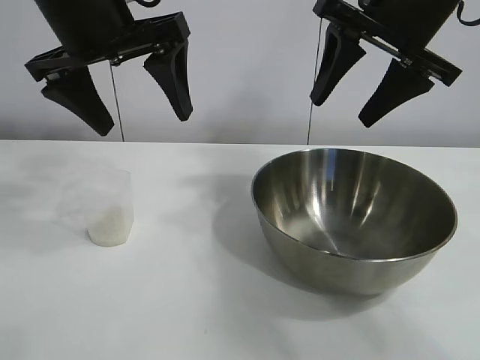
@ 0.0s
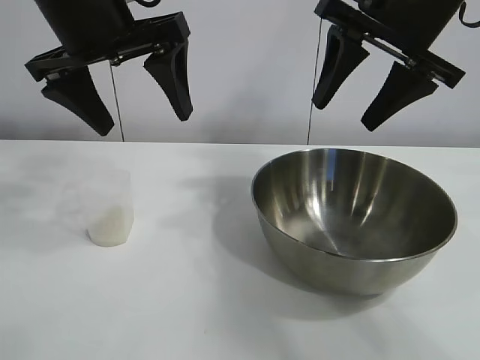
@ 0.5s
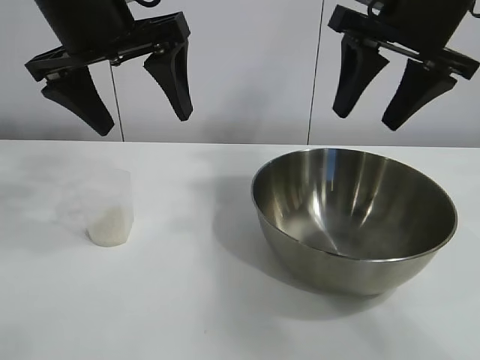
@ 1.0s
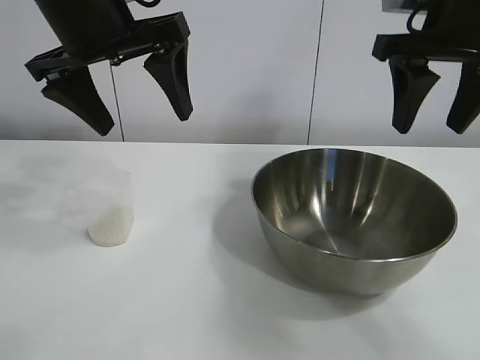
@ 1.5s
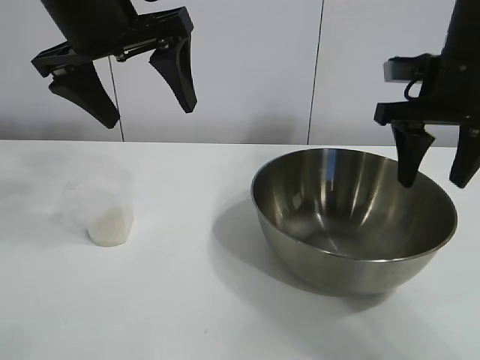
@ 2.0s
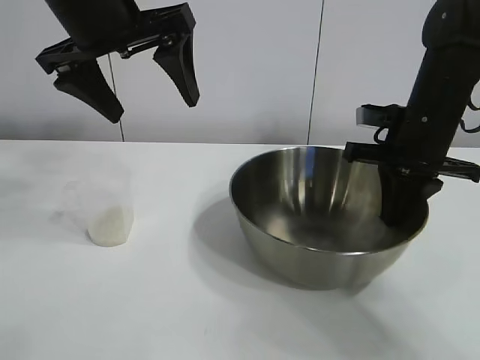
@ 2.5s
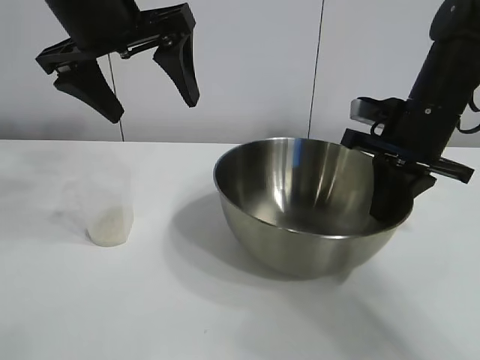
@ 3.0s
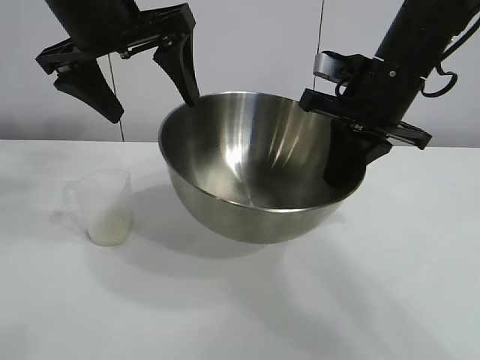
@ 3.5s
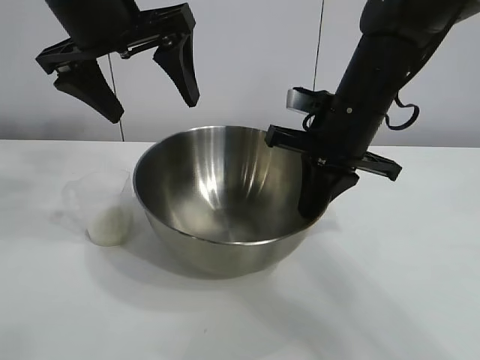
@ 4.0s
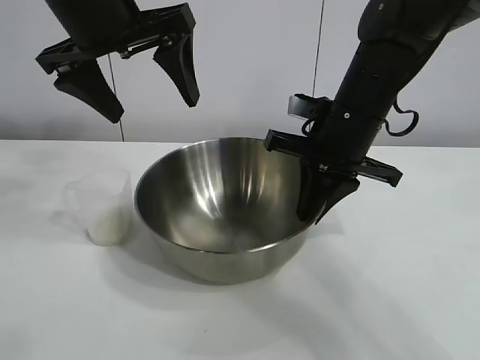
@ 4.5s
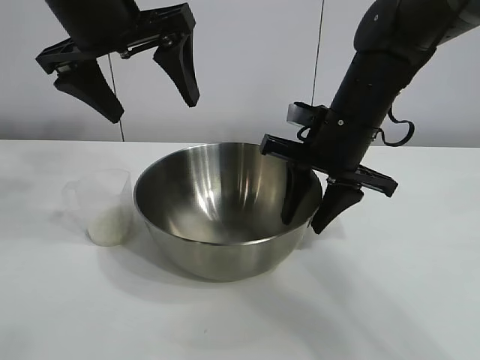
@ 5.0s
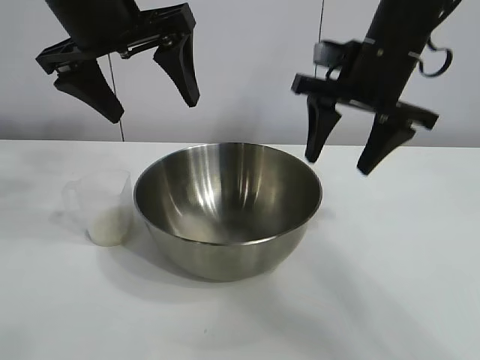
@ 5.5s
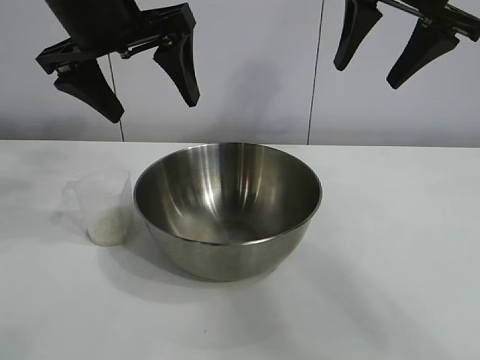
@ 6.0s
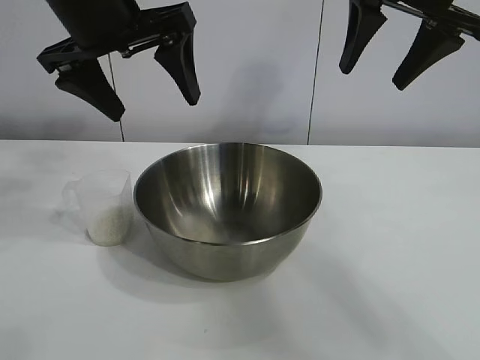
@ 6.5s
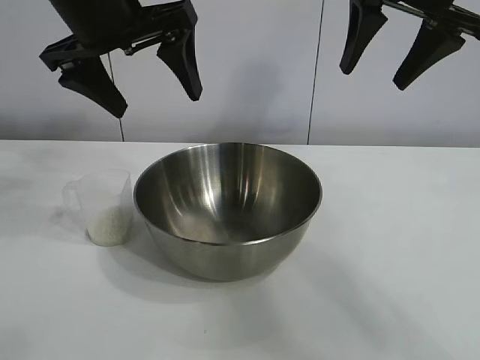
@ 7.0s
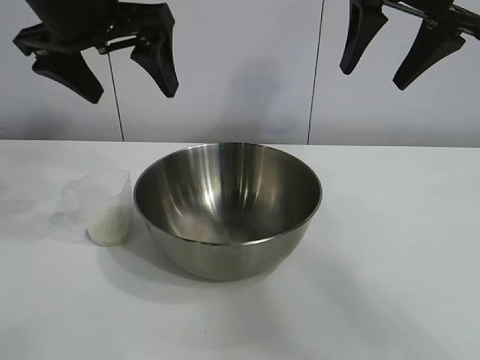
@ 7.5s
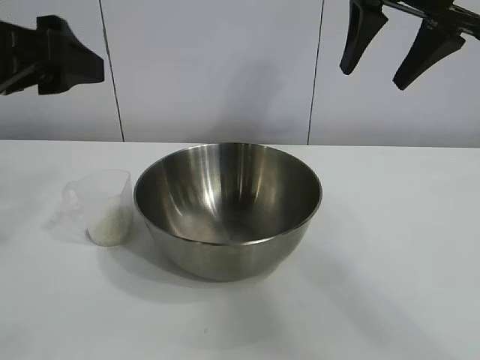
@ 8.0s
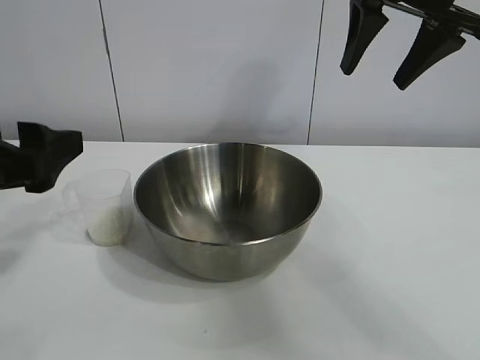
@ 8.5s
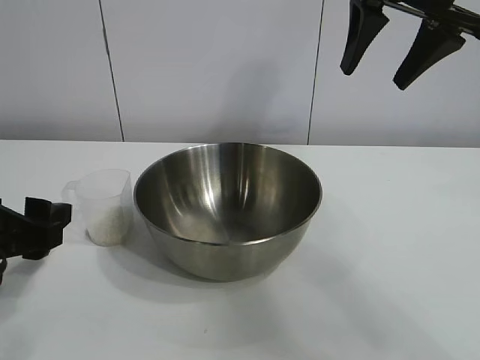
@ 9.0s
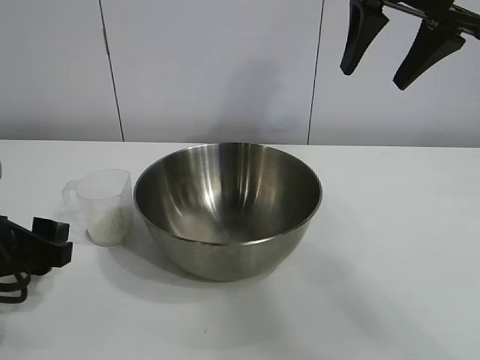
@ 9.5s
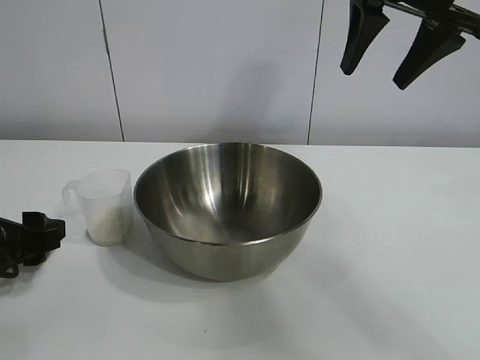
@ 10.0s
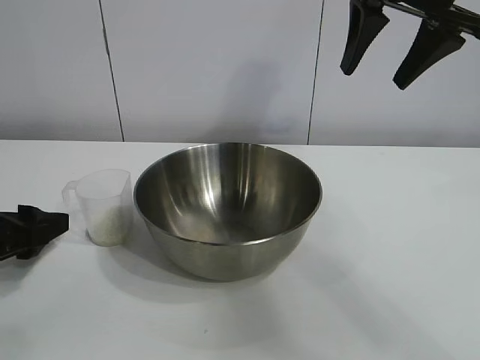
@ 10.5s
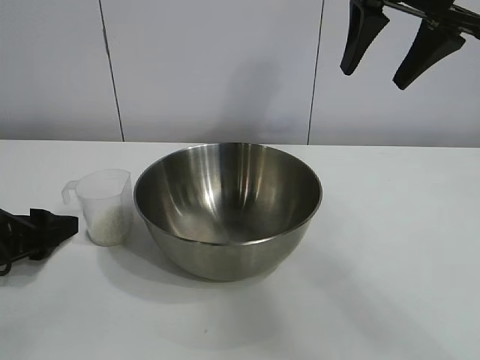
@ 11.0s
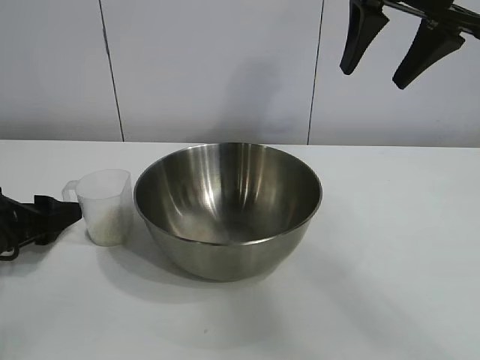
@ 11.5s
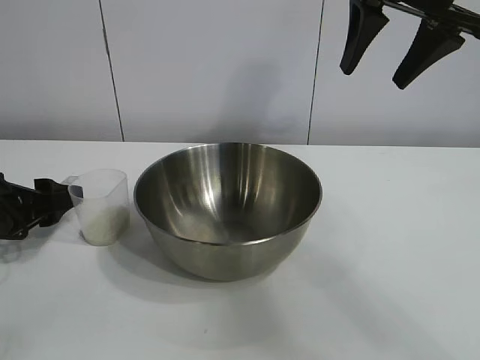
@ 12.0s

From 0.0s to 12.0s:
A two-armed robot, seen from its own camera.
Task of the whole recording: the right gripper grasp the rice container and place it in the center of the table, the left gripper grasp the rice scoop and pour the rice into the rice container.
Step, from 1.0s to 4.5s: Move the bowl in the center of view with right gripper.

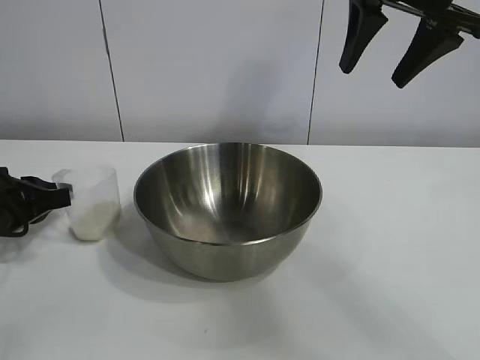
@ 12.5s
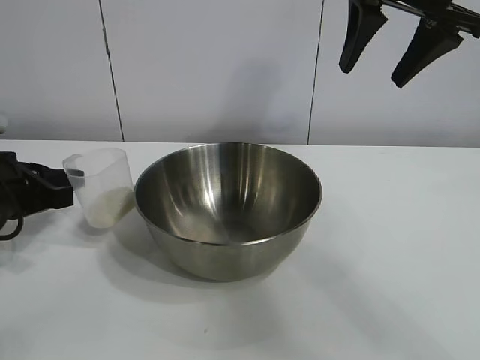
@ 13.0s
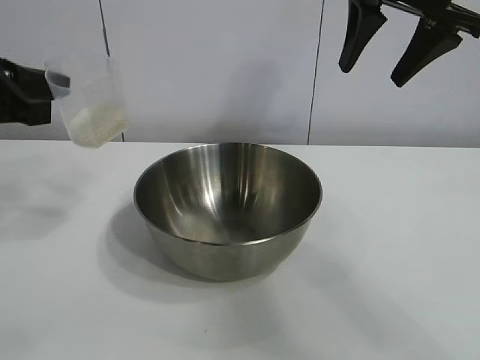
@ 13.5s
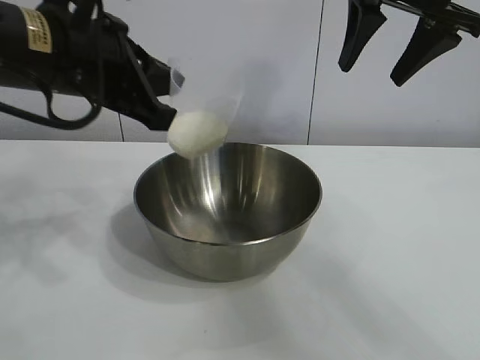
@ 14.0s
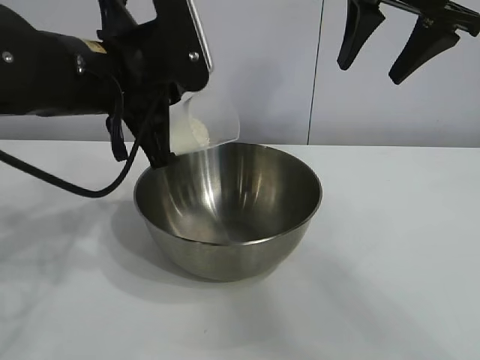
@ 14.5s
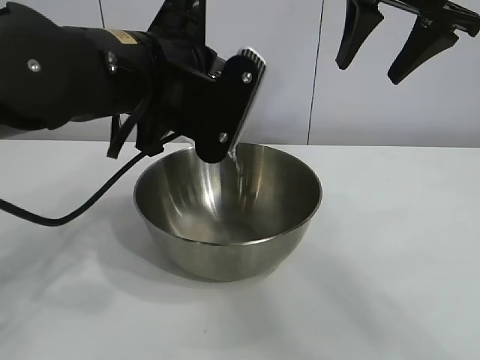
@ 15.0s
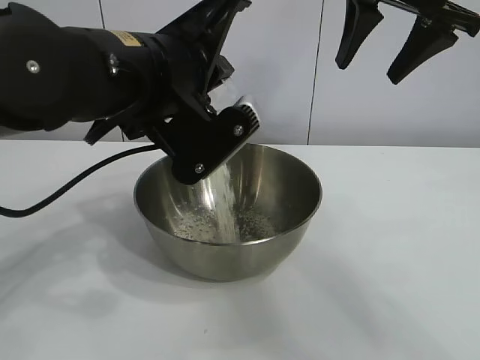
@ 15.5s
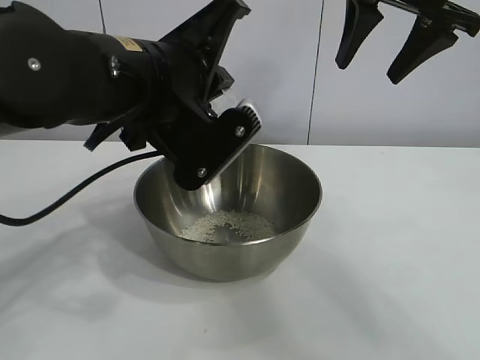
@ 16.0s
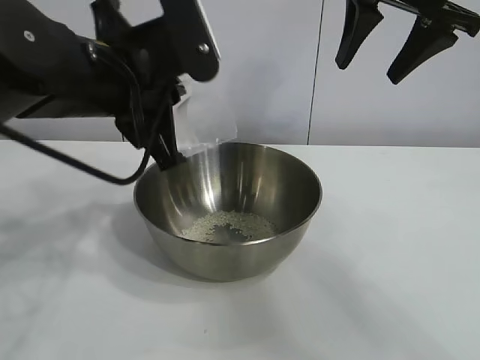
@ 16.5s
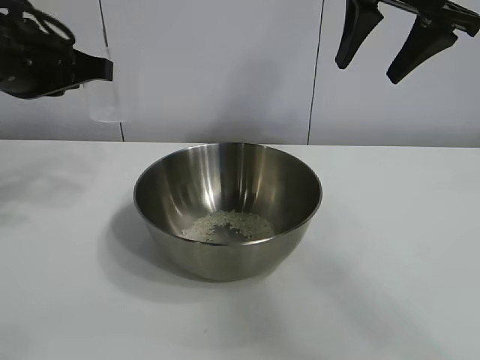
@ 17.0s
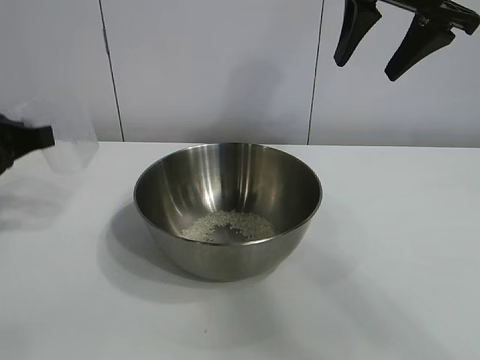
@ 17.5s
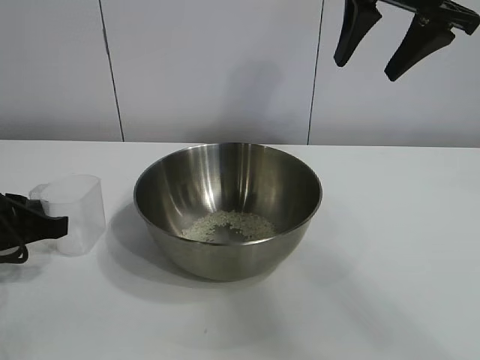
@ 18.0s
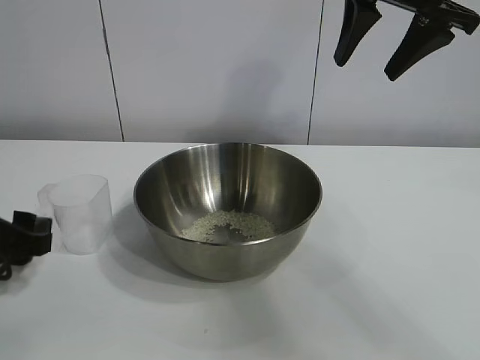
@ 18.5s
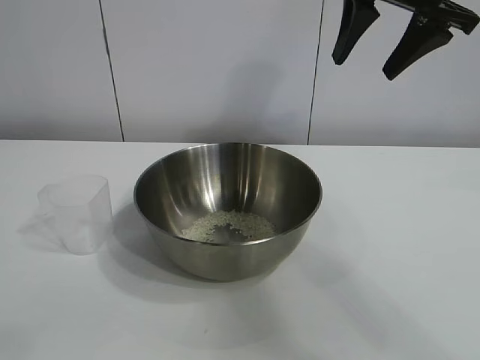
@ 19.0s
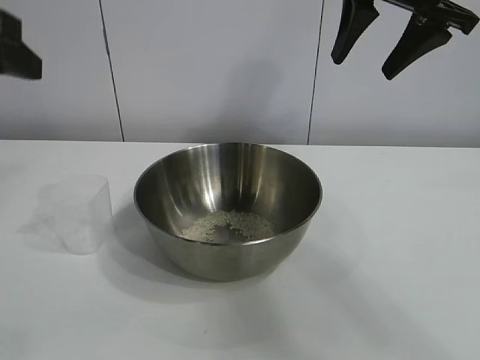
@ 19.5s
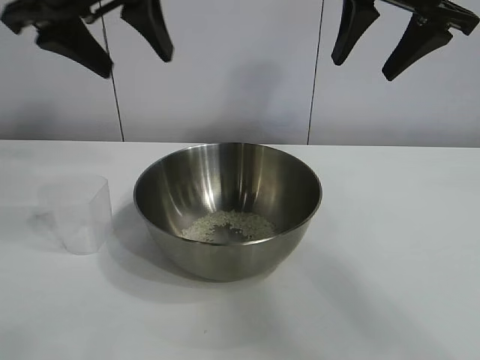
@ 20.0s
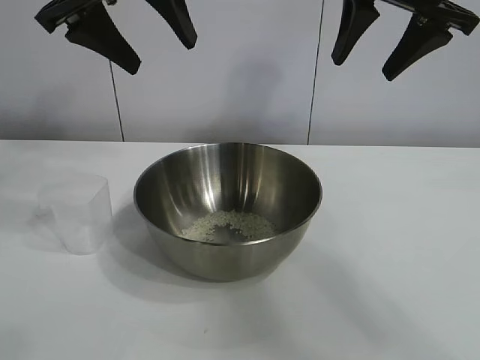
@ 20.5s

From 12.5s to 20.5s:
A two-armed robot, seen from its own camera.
Task of the whole recording: the right gripper grasp the rice container and place it in the center of the table, the left gripper grasp the rice scoop and pour the rice into the rice container.
Step, from 13.0s to 16.0s: Pour the rice from the cup into the bowl with the left gripper.
Step, from 16.5s to 18.0s: Place the cup on the table with the left gripper.

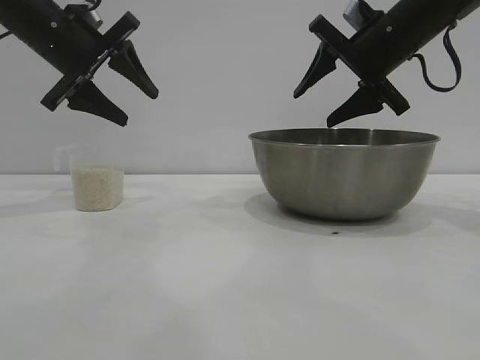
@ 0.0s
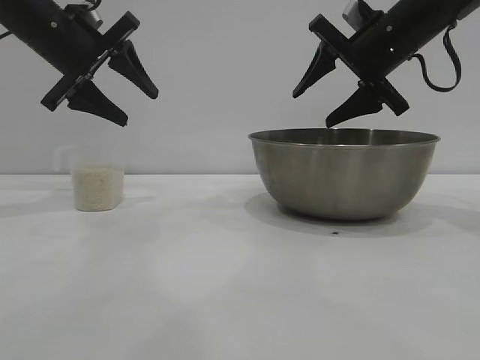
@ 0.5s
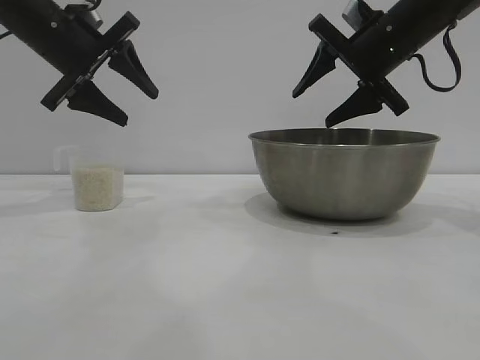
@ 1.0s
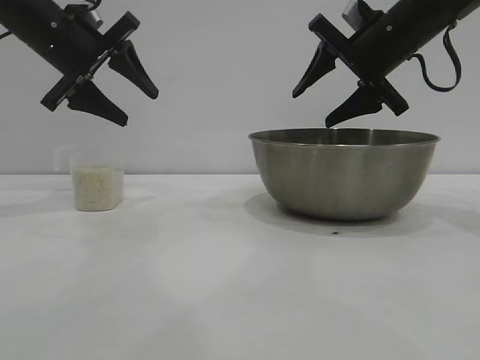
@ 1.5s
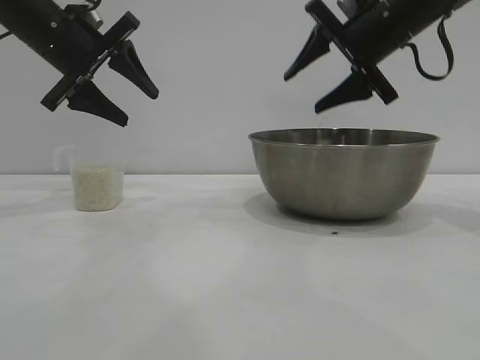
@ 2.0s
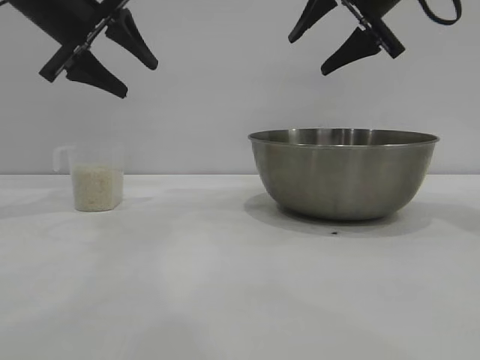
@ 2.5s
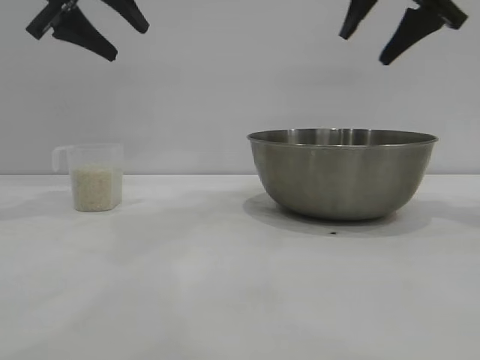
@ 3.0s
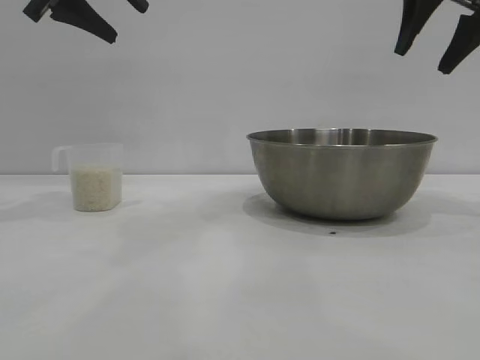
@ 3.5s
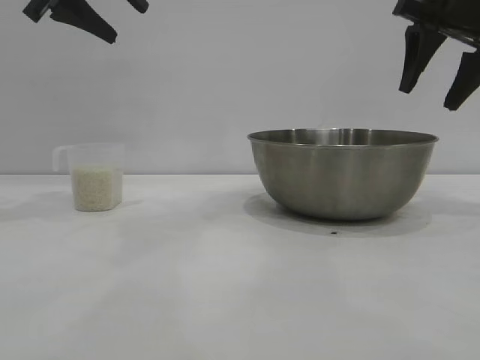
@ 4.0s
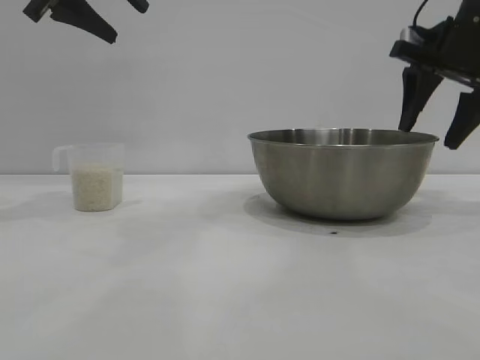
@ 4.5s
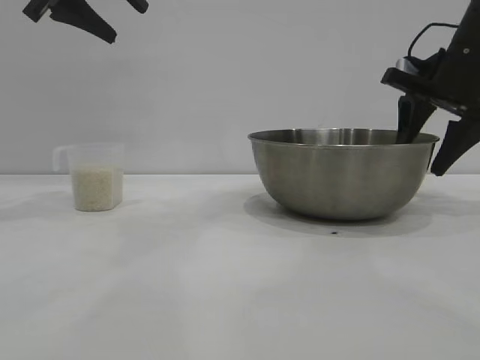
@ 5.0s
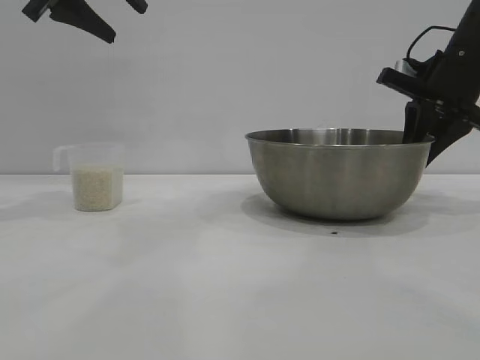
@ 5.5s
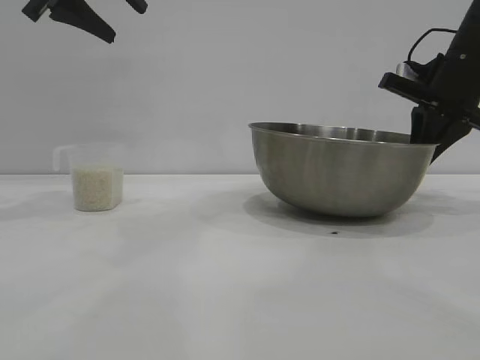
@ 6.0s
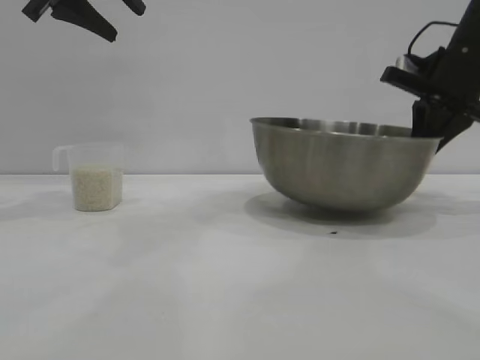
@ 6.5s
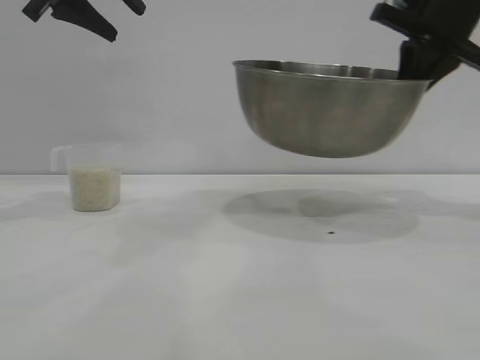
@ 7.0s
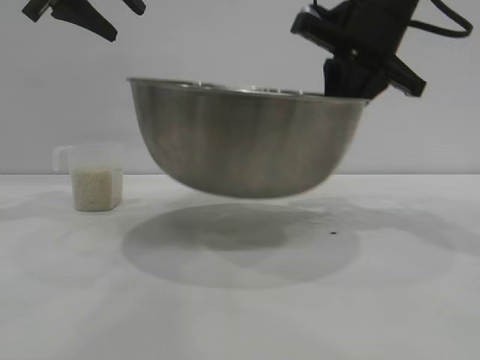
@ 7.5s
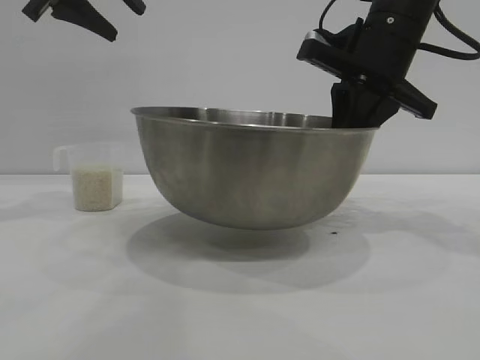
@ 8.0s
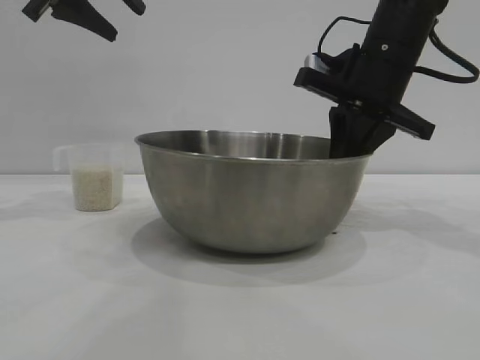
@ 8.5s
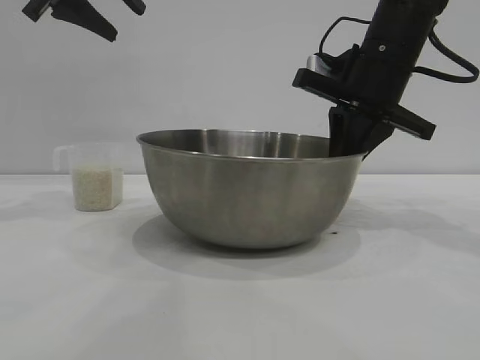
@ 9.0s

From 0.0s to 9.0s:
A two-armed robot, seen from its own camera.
Task of the whole recording: the right gripper grasp the rice container and place it in the center of the table, the left gripper grasp the rice scoop and pour the rice into the rice container.
Step, from 0.0s to 6.5s: Pick up the bowl with the right gripper.
